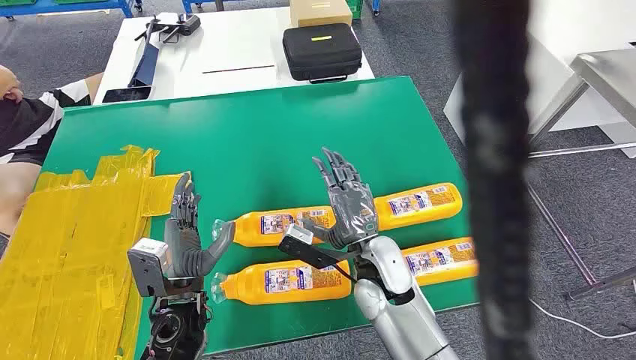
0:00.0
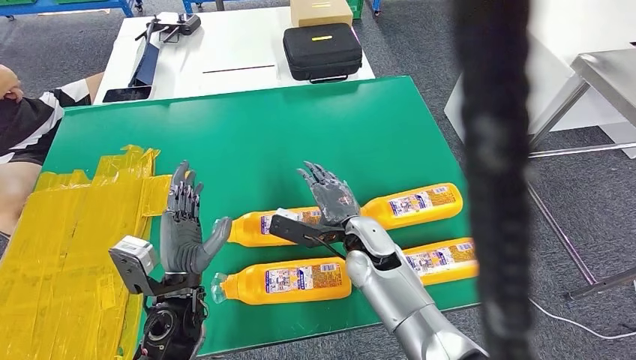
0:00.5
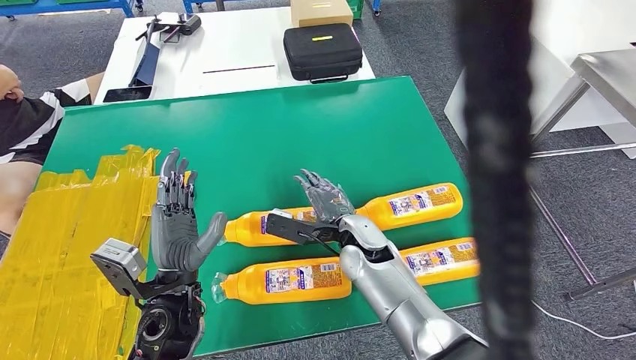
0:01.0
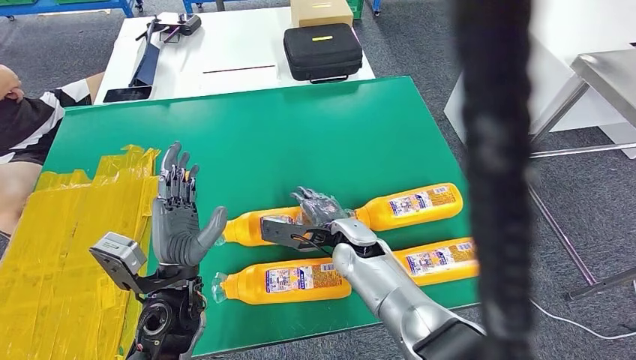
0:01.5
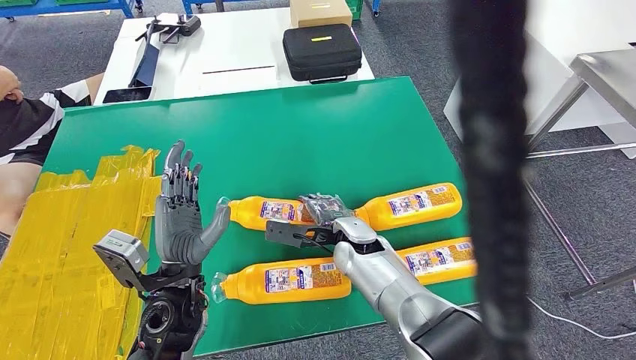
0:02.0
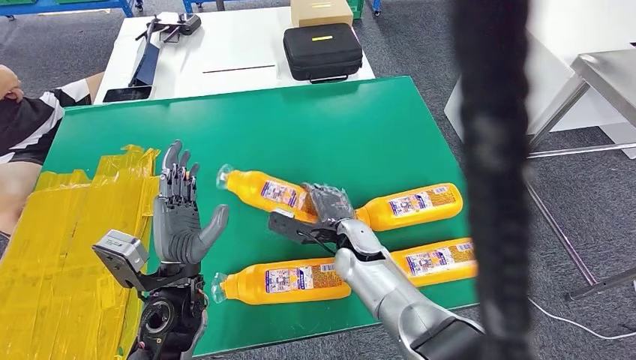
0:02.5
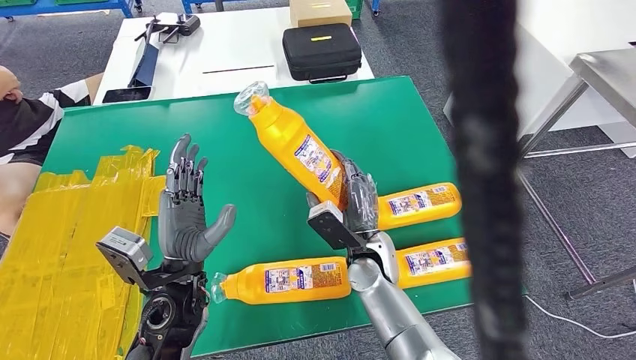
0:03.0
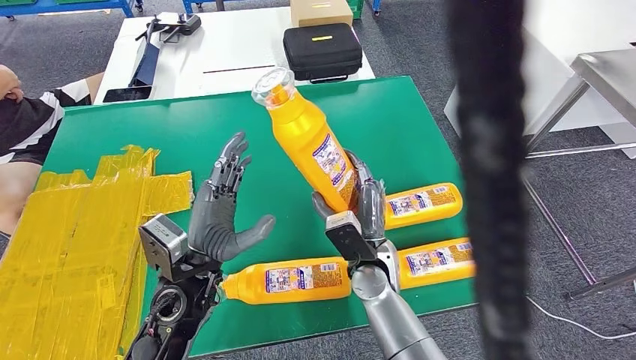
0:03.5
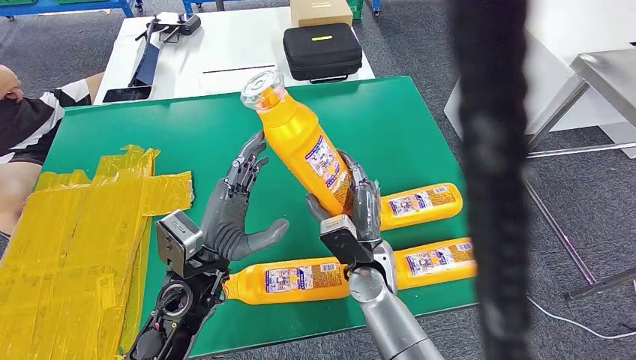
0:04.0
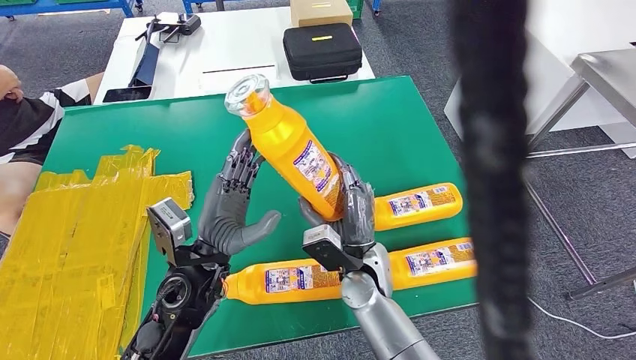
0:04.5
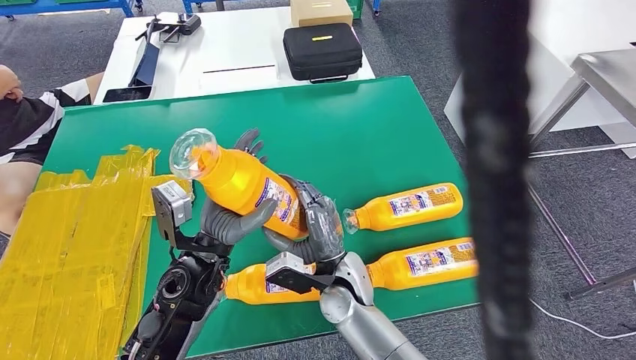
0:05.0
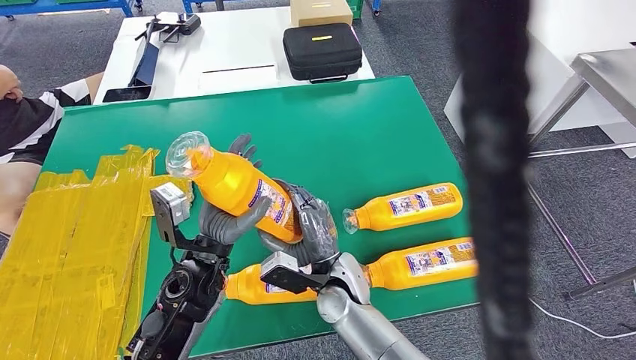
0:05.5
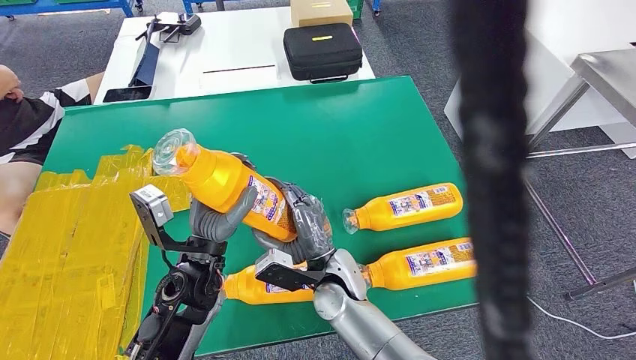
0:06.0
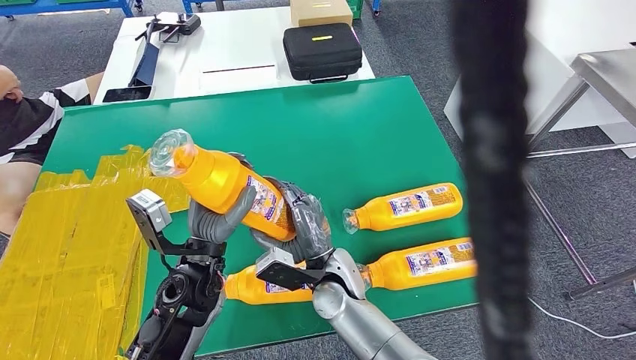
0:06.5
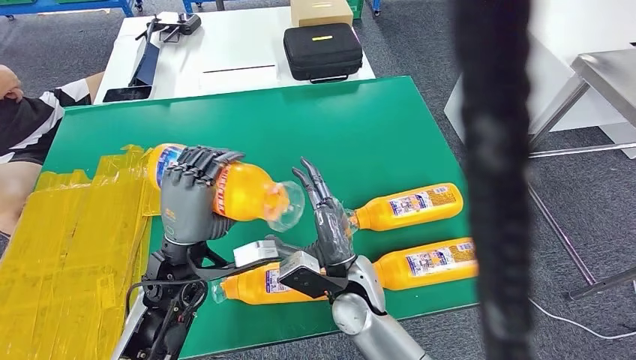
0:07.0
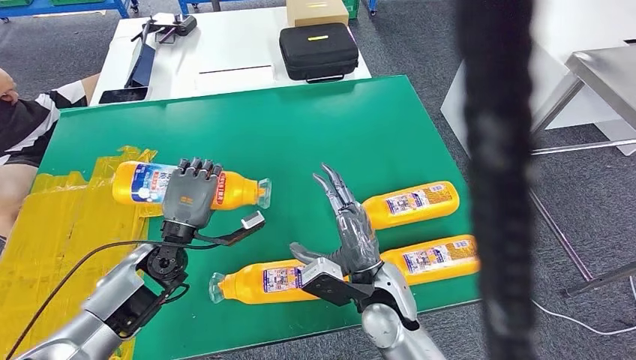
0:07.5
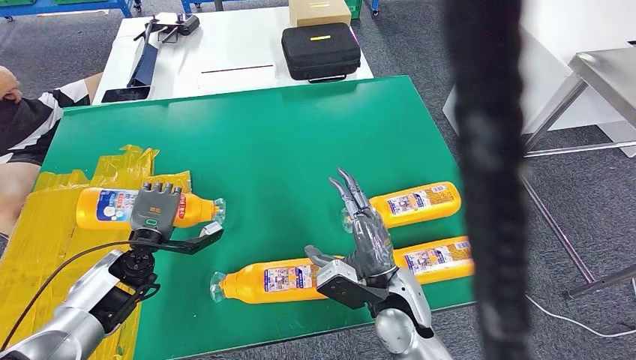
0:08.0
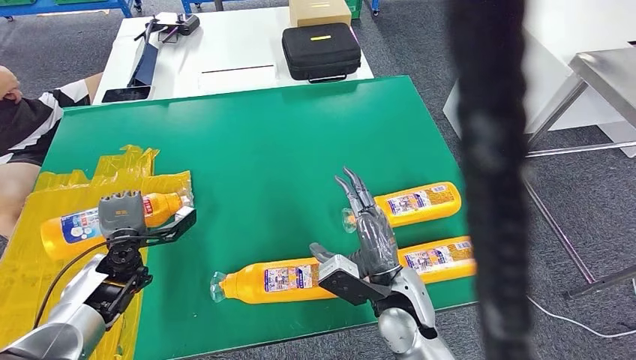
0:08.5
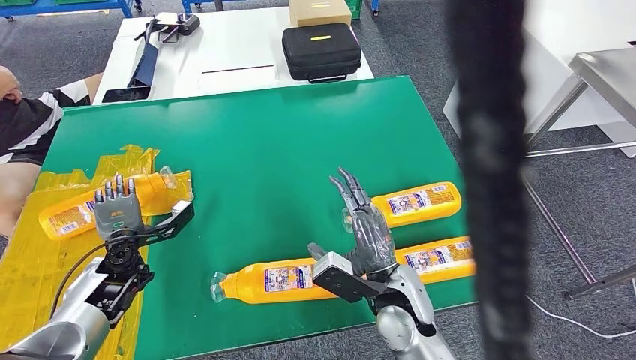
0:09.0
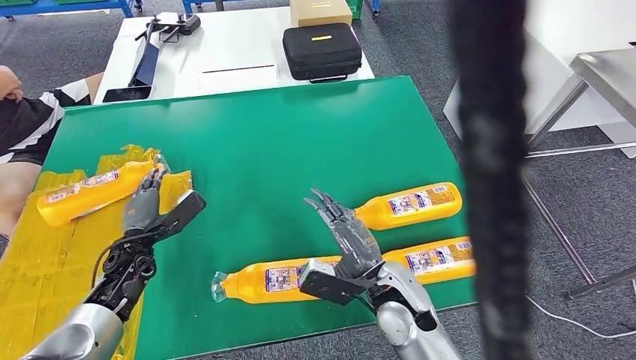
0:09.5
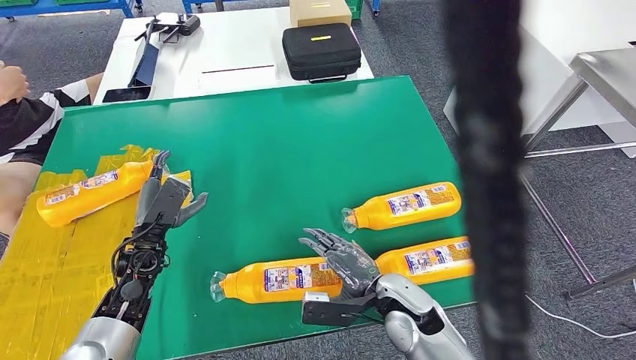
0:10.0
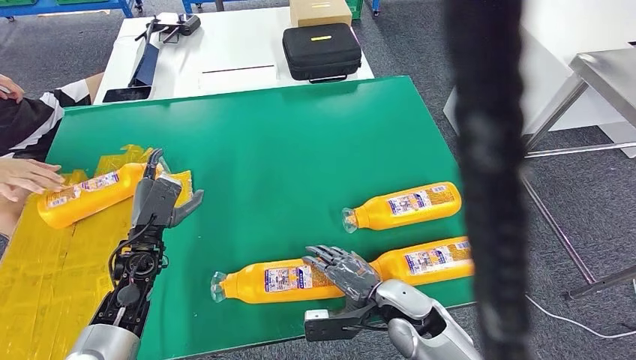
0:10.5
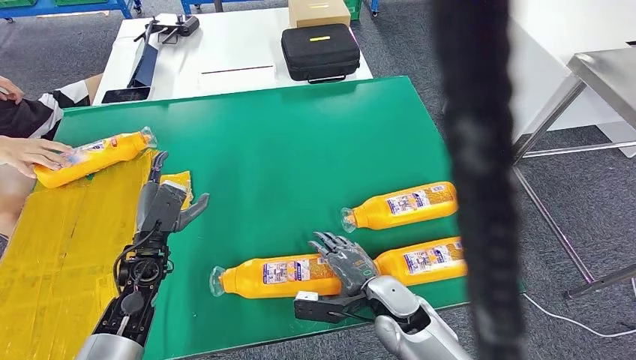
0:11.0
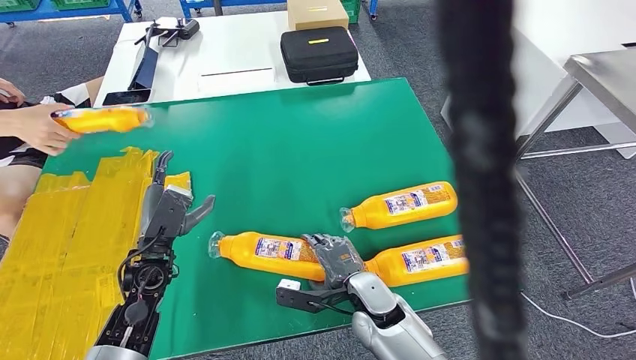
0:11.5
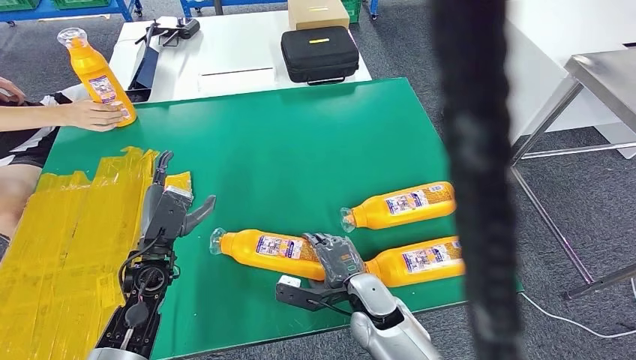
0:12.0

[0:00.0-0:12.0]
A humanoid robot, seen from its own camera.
Step, 0:00.0 to 0:05.0: Take the fast-moving consumer goods bottle from the table.
Step, 0:06.0 to 0:09.0: Flip the fast-moving consumer goods bottle to the front side.
0:02.0 to 0:04.0: The right hand travels backward by roughly 5 cm.
0:04.0 to 0:06.0: The right hand moves to the left, approximately 5 cm.

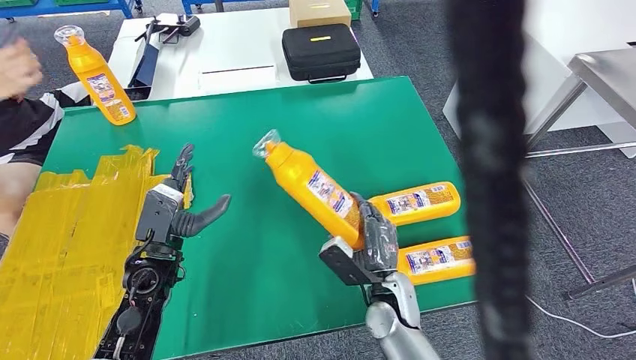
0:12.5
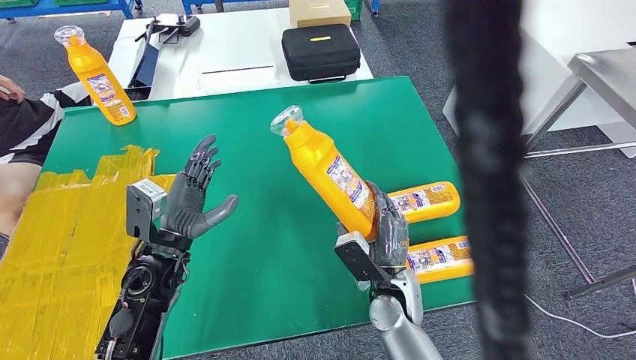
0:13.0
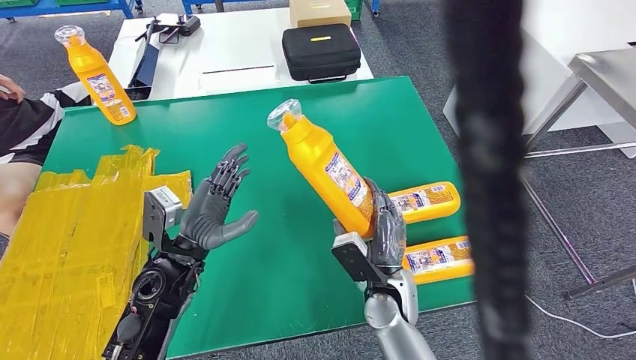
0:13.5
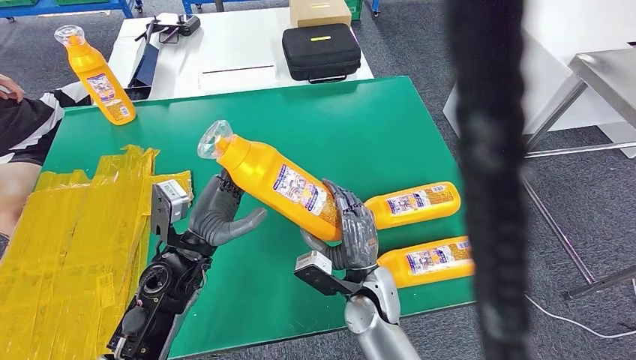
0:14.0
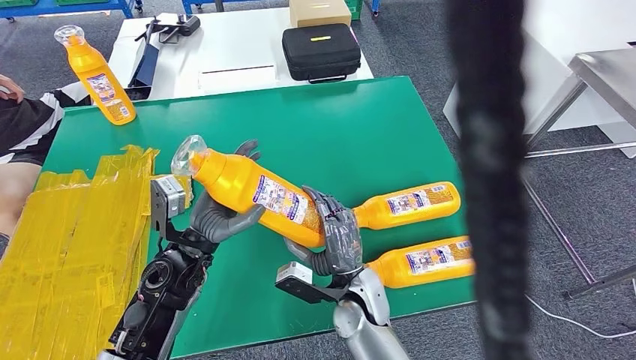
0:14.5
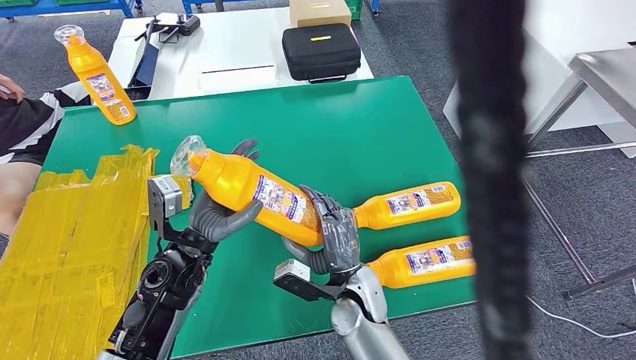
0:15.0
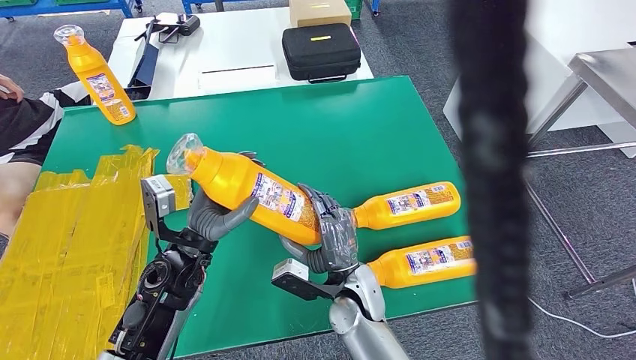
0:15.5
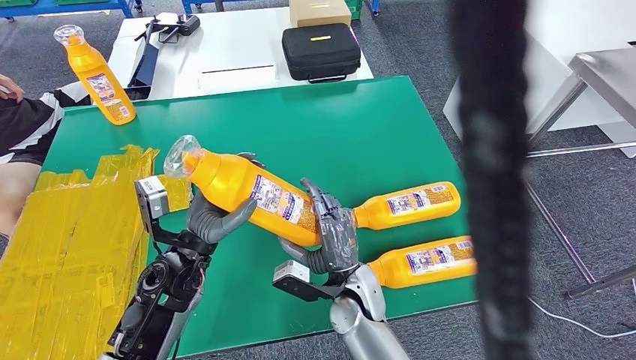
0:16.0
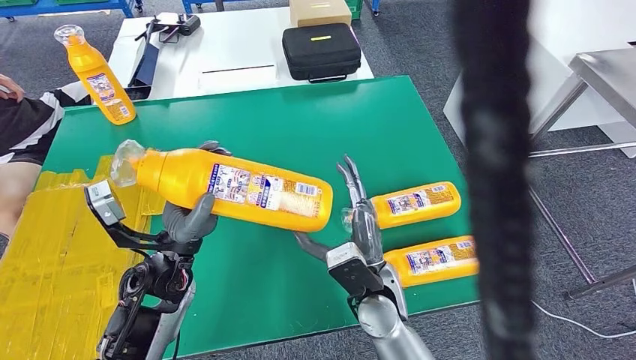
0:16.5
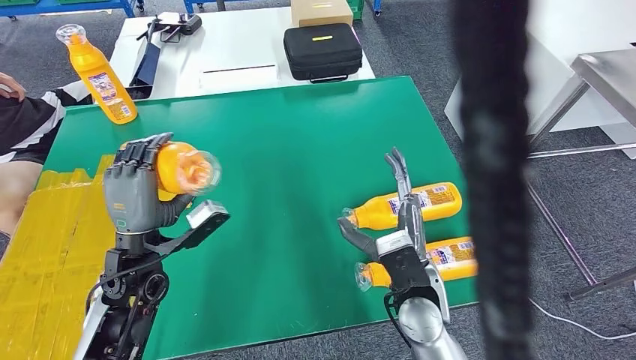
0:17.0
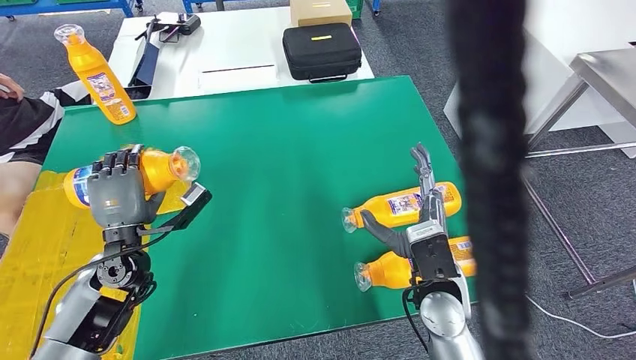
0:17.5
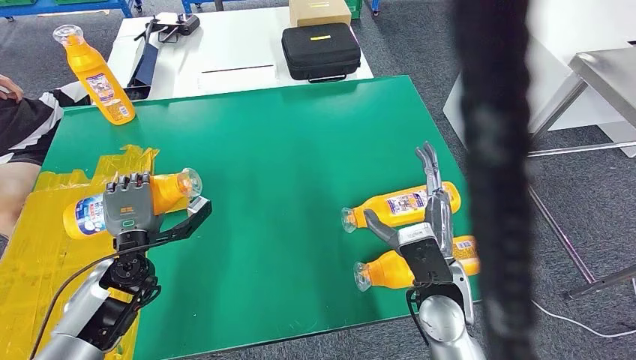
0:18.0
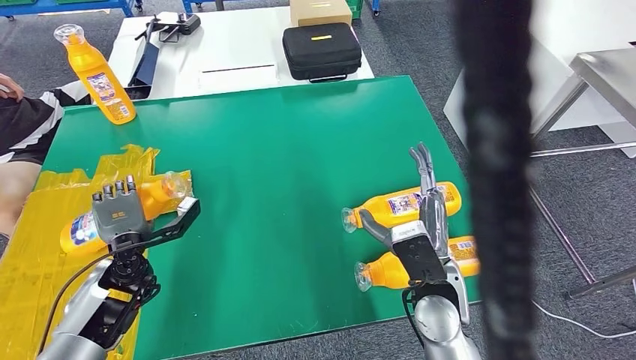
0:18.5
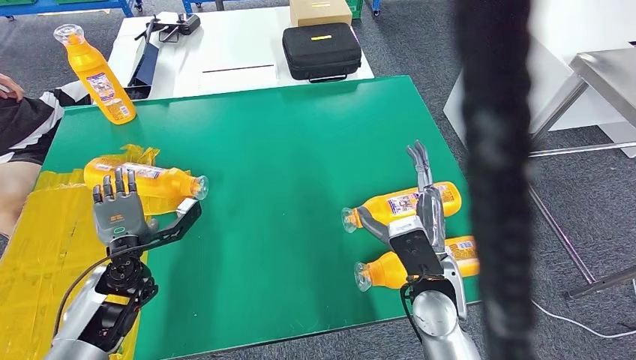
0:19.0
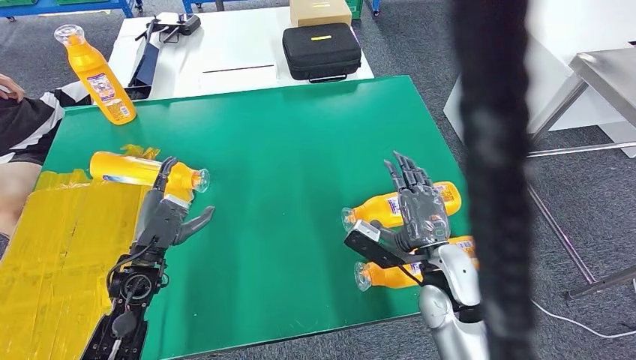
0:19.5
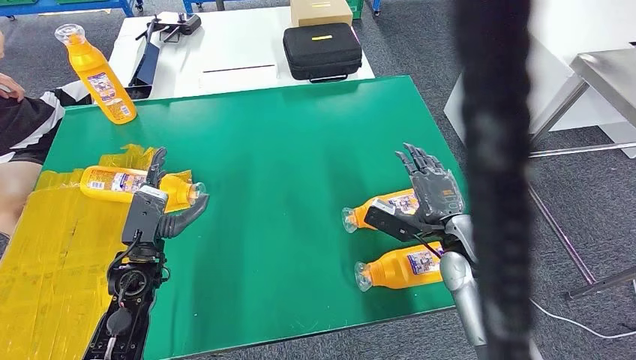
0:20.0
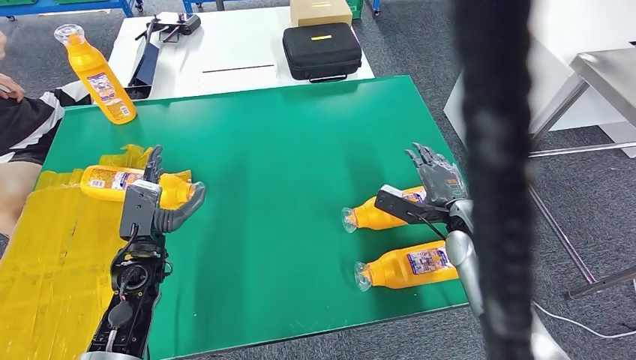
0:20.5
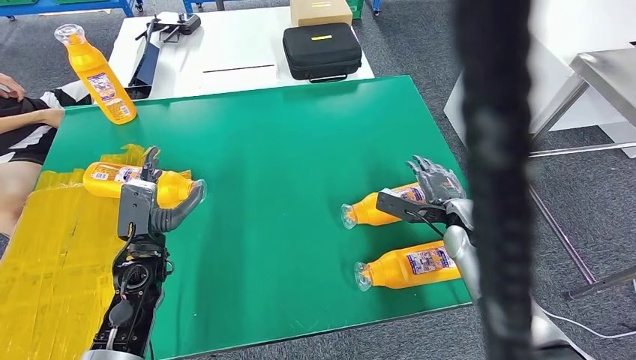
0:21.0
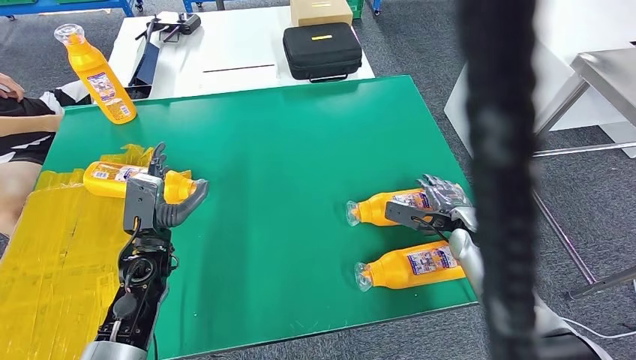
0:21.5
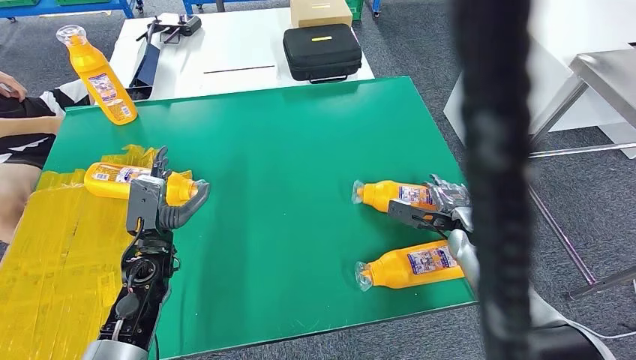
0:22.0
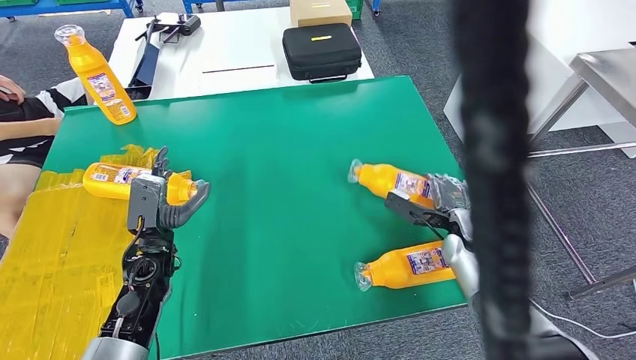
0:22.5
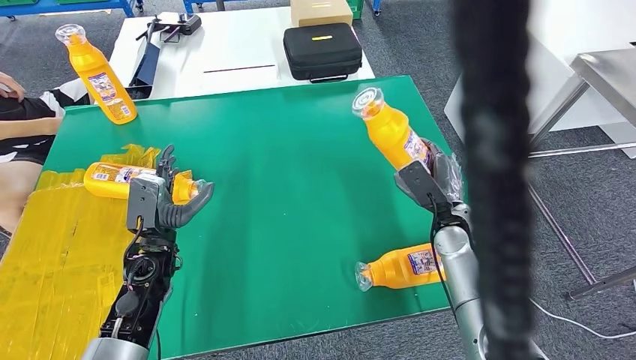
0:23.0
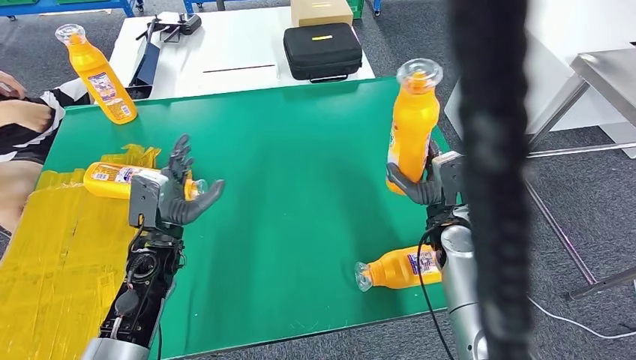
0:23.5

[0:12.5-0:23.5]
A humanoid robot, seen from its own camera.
Step, 0:12.5 to 0:14.5: Pick up the fast-moving consumer goods bottle from the table.
Step, 0:15.0 to 0:18.5: Flip the fast-moving consumer goods bottle to the front side.
0:12.5 to 0:14.5: The right hand moves to the left, about 5 cm; the left hand goes approximately 5 cm to the right.
0:14.5 to 0:16.0: The hands make only small movements.
0:18.0 to 0:20.0: The right hand travels to the right and forward by roughly 10 cm.
0:20.0 to 0:21.5: The right hand goes about 10 cm to the right, downward and forward.
0:21.5 to 0:23.5: The right hand is displaced to the left by about 5 cm.
